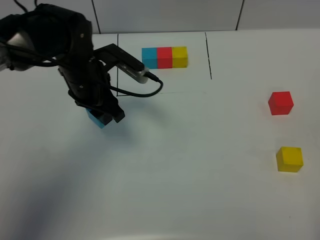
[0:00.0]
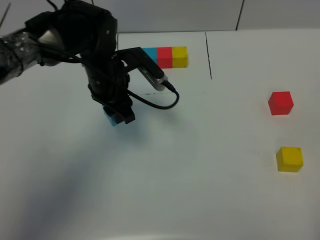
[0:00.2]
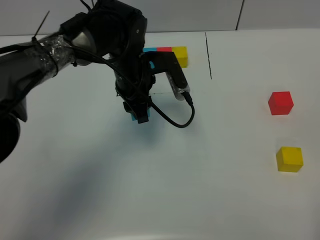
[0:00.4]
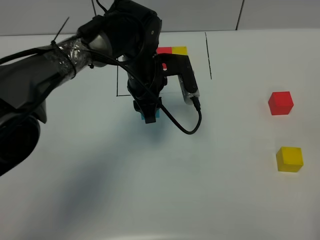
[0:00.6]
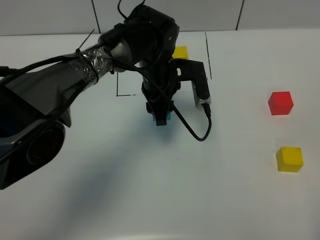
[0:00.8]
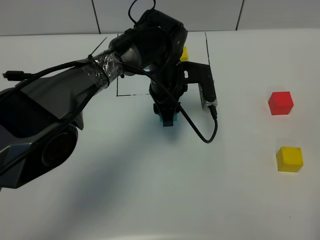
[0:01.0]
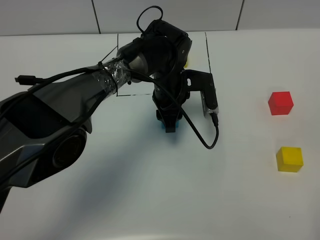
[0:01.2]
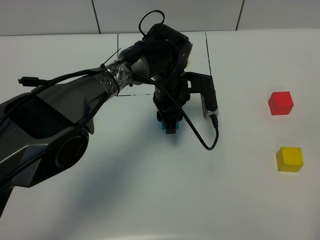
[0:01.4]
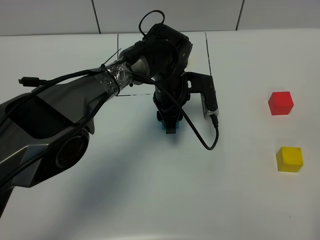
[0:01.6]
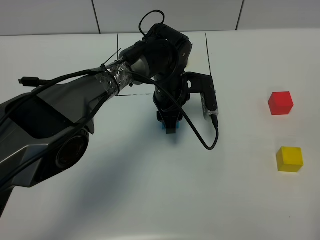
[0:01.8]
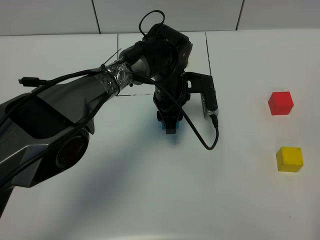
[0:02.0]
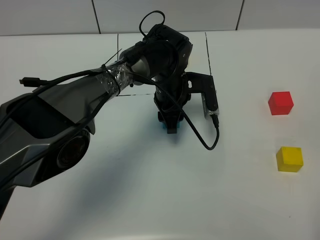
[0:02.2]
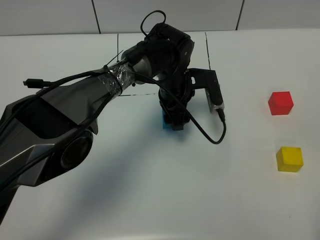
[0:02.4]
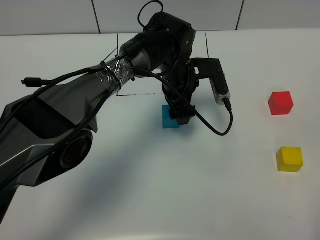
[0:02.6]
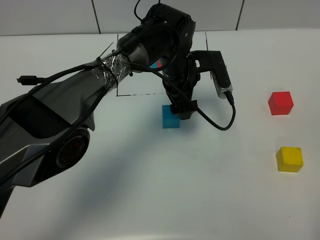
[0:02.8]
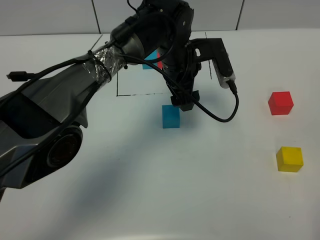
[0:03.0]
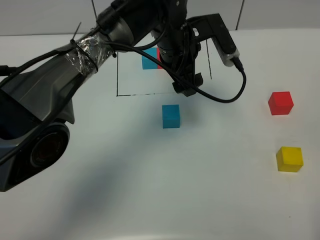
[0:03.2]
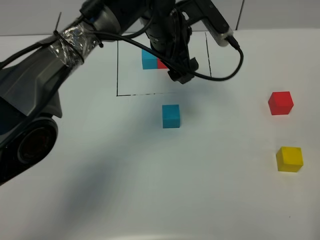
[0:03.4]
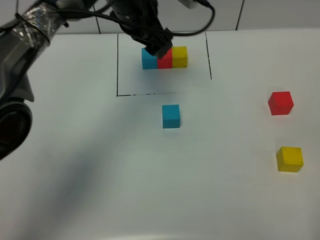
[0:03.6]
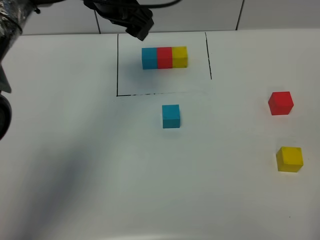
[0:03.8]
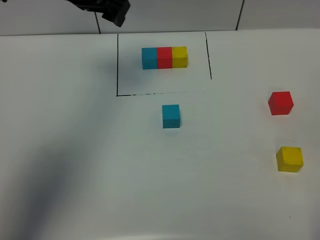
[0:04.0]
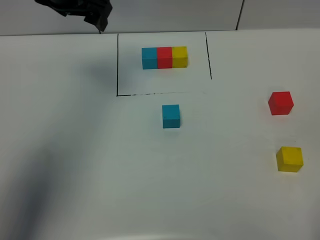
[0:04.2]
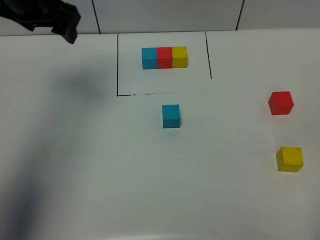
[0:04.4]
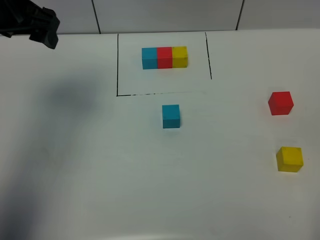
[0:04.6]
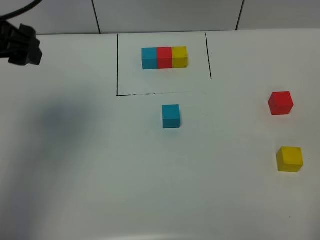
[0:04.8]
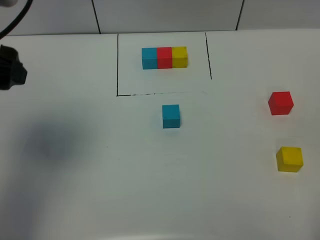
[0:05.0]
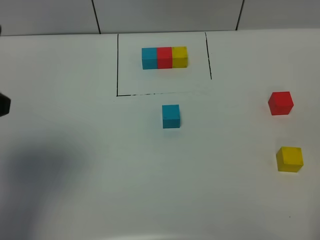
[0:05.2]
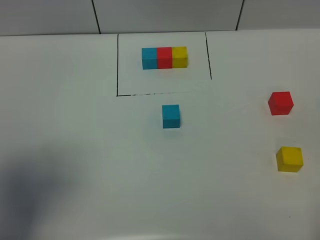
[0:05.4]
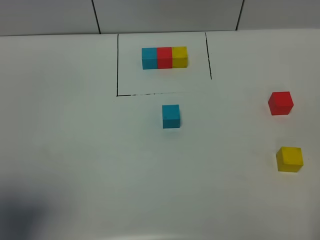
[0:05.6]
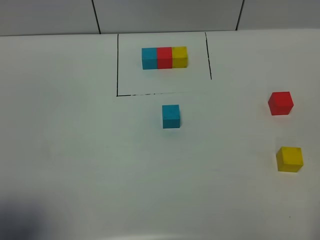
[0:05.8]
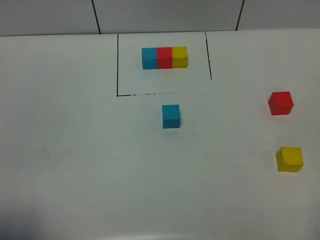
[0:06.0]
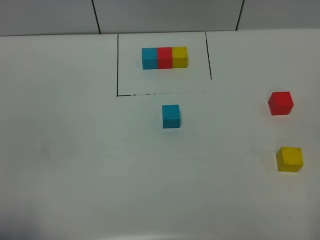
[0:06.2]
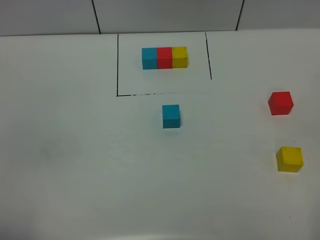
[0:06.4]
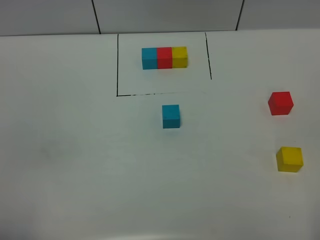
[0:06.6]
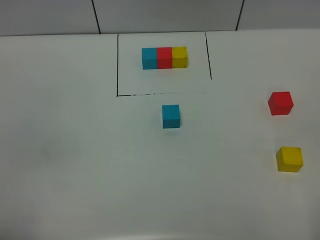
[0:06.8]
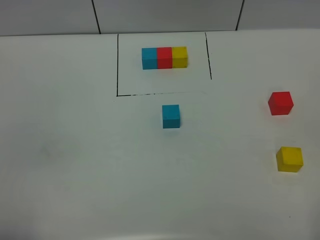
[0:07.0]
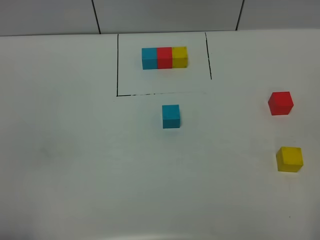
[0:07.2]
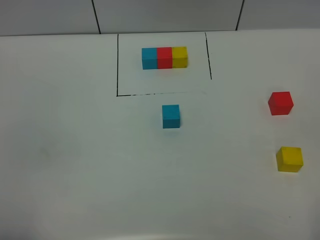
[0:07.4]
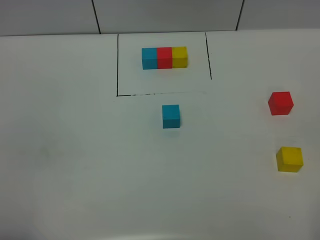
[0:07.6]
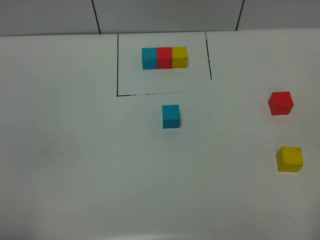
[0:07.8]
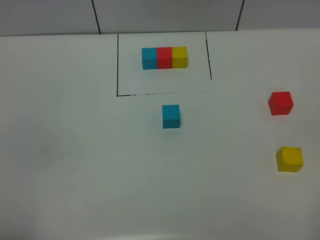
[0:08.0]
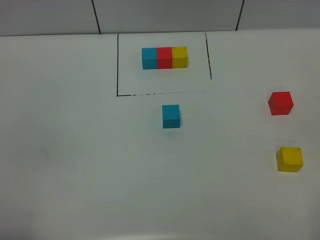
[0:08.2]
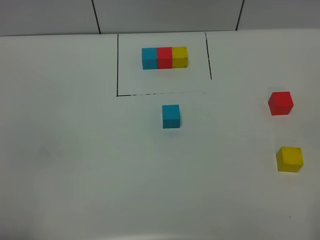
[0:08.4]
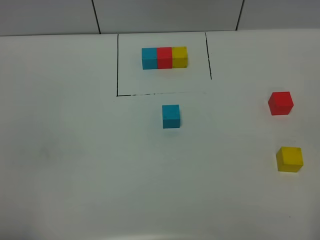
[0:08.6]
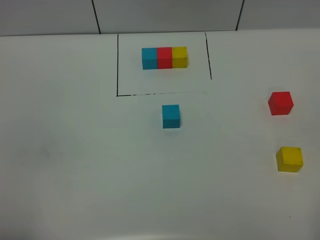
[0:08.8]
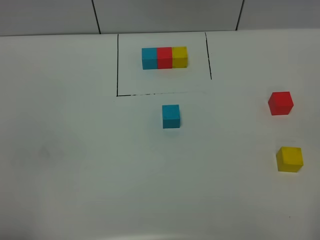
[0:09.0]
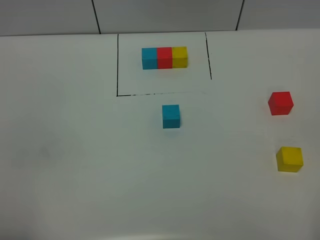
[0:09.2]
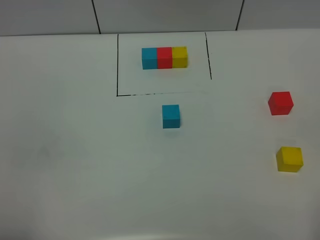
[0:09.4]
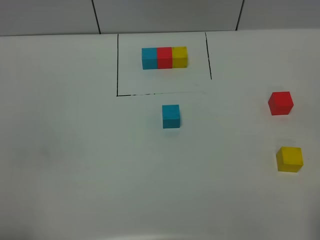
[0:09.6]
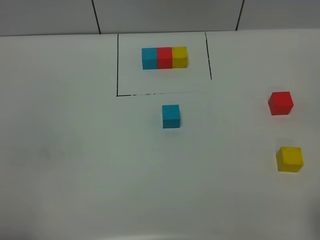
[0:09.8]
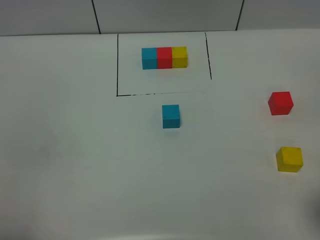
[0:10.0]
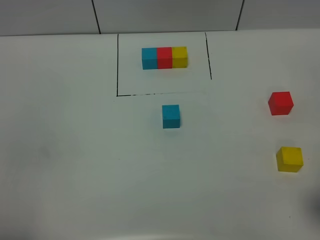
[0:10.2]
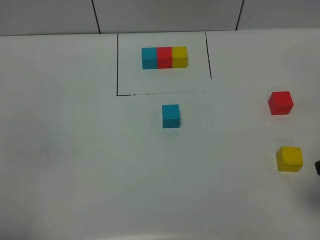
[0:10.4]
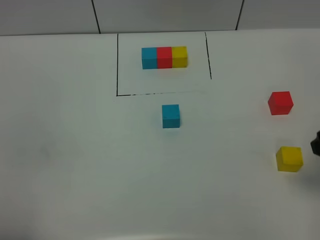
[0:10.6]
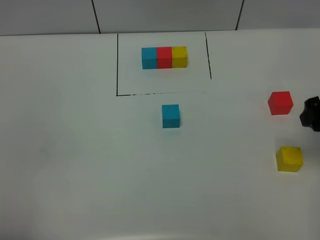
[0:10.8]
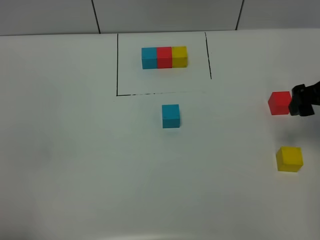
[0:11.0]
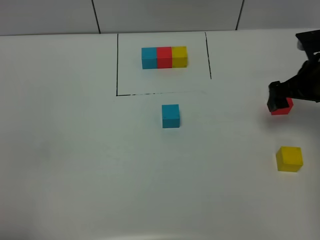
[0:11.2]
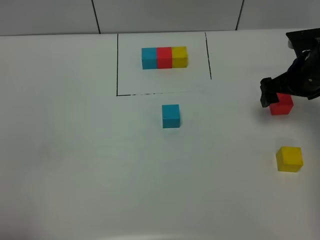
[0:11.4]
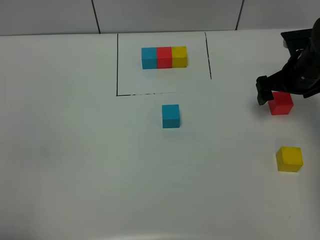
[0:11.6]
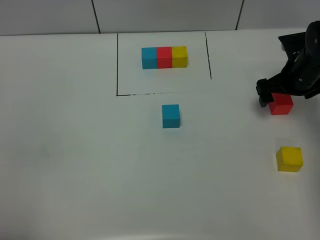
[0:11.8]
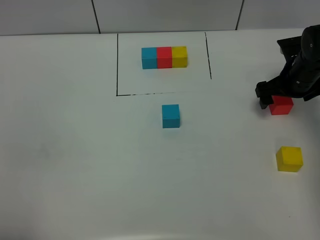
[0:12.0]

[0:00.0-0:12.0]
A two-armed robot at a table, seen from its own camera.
Task of the whole recording: According to the building block template in front, assemble the scattered blocks together.
Step, 0:00.0 to 0:02.2: Put the blue build block in the center of the table.
0:00.0 to 0:01.6: The left gripper is displaced to the right and downward by some 15 cm.
0:01.6 to 0:03.0: The left gripper shifts approximately 10 cm upward, and opens up.
0:03.0 to 0:04.4: The left gripper goes some 30 cm to the left and upward.
0:04.4 to 0:06.0: The left gripper moves backward, roughly 35 cm.
0:07.6 to 0:09.0: Both grippers stay about where they are.
0:09.0 to 0:10.4: The right gripper travels forward by roughly 15 cm.
0:10.4 to 0:12.0: The right gripper shifts approximately 25 cm forward and downward.

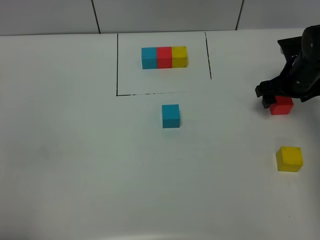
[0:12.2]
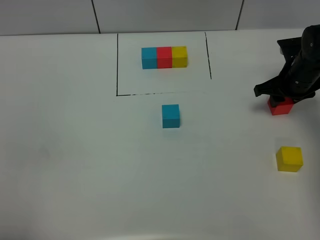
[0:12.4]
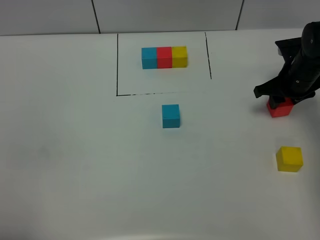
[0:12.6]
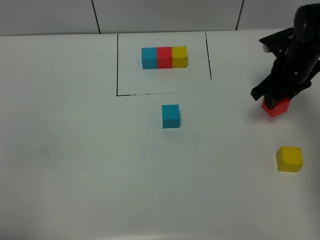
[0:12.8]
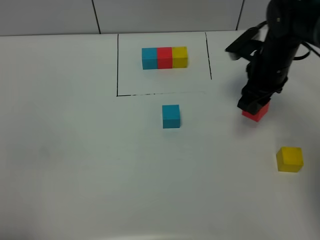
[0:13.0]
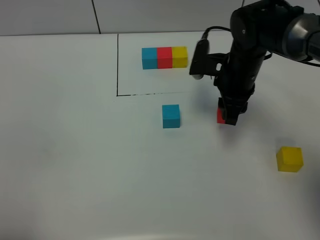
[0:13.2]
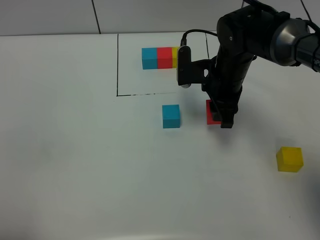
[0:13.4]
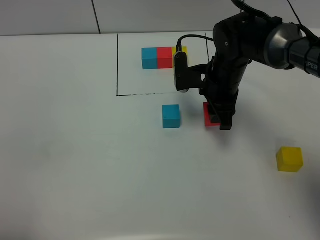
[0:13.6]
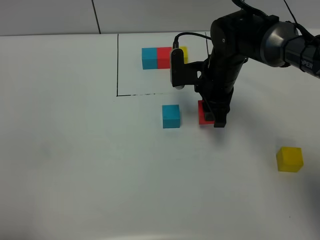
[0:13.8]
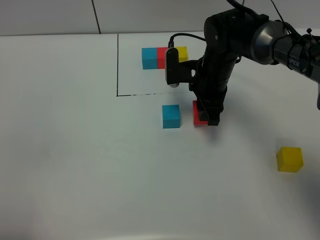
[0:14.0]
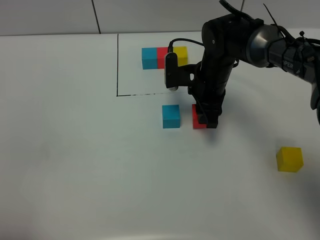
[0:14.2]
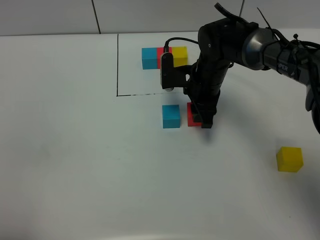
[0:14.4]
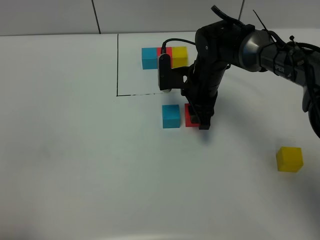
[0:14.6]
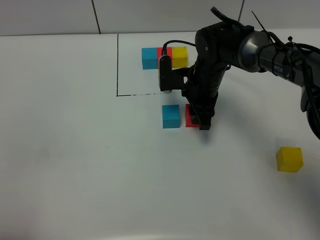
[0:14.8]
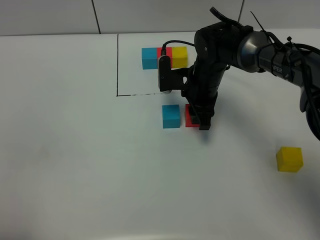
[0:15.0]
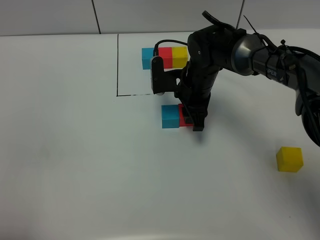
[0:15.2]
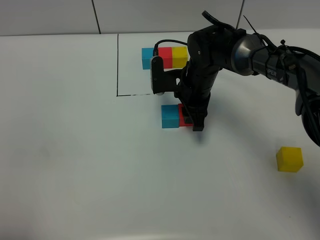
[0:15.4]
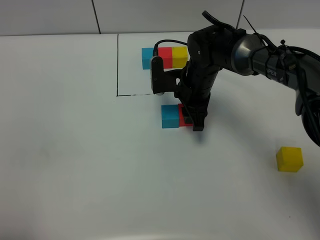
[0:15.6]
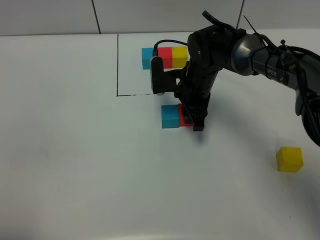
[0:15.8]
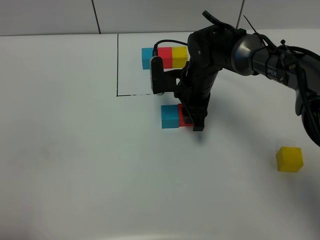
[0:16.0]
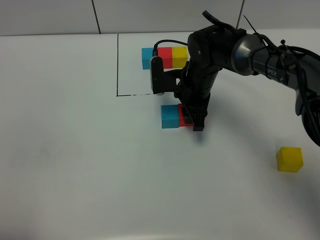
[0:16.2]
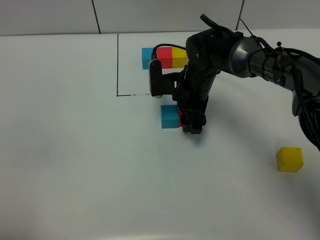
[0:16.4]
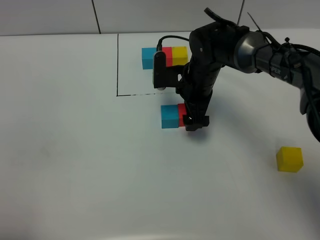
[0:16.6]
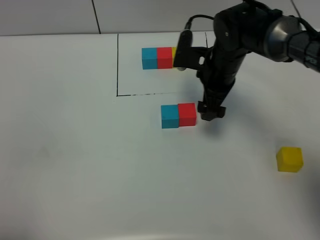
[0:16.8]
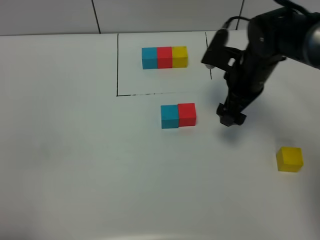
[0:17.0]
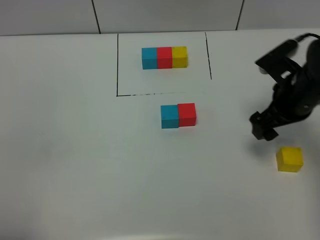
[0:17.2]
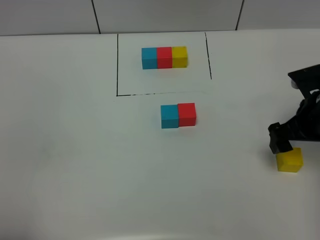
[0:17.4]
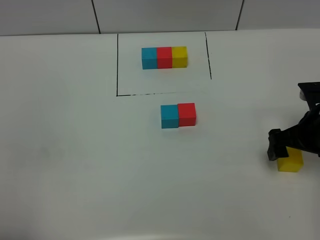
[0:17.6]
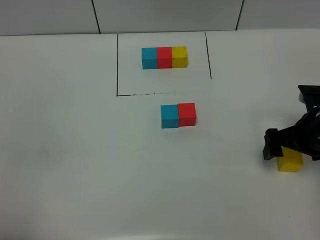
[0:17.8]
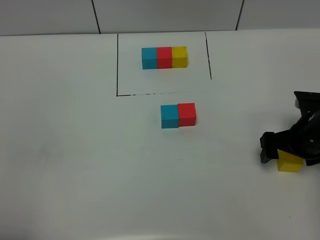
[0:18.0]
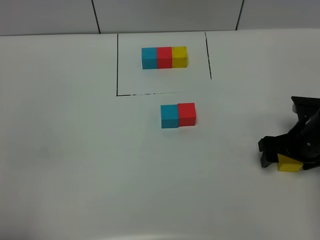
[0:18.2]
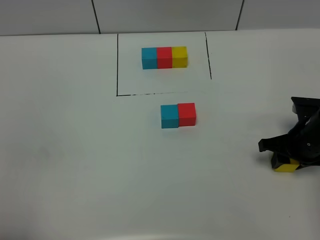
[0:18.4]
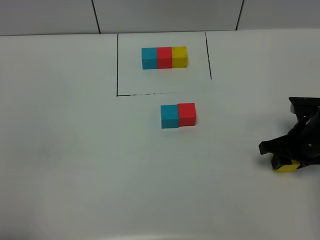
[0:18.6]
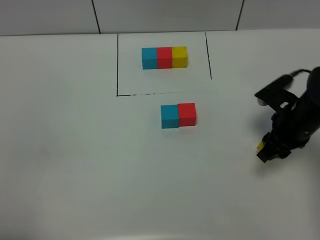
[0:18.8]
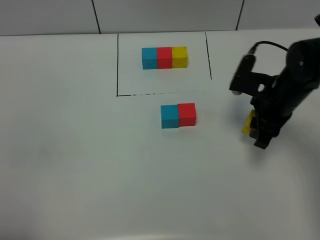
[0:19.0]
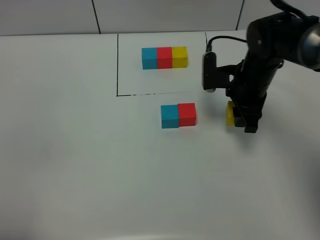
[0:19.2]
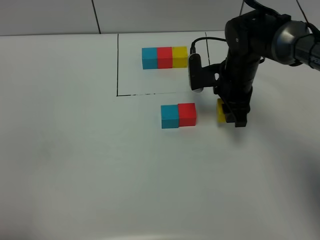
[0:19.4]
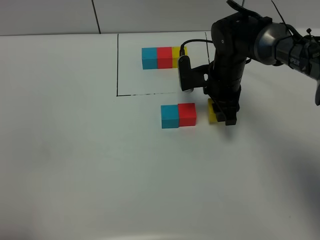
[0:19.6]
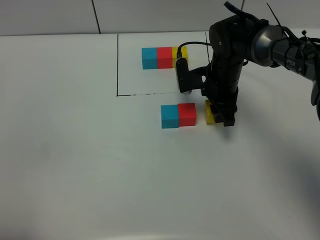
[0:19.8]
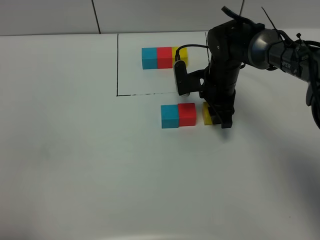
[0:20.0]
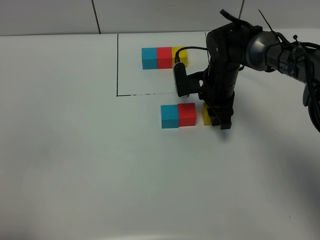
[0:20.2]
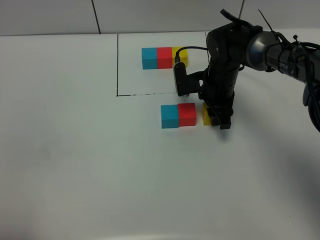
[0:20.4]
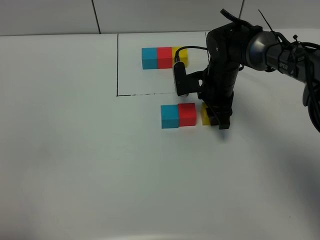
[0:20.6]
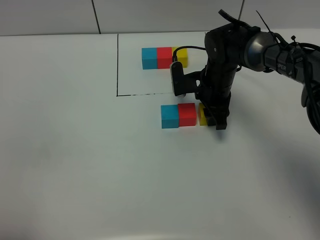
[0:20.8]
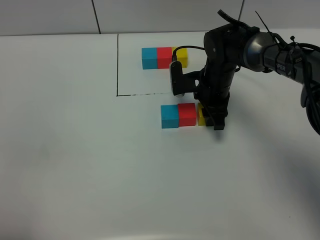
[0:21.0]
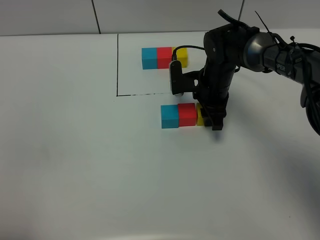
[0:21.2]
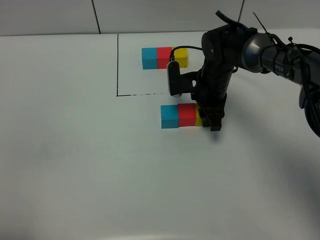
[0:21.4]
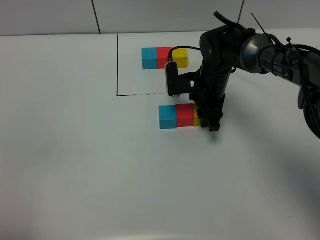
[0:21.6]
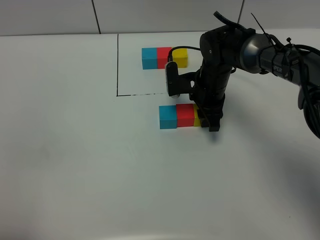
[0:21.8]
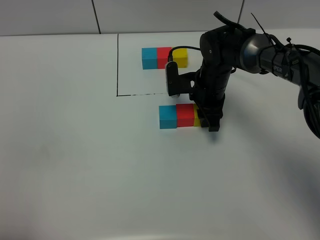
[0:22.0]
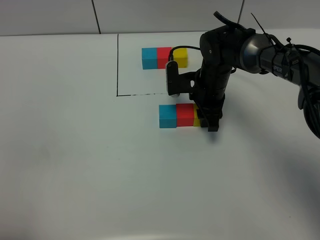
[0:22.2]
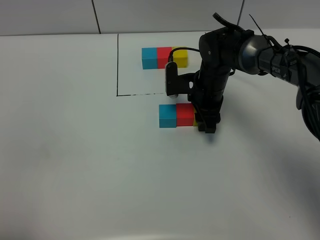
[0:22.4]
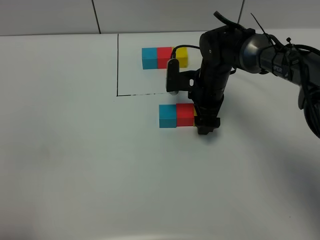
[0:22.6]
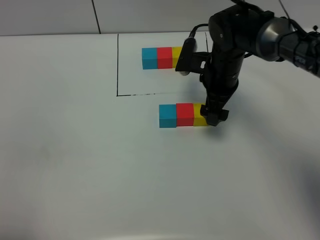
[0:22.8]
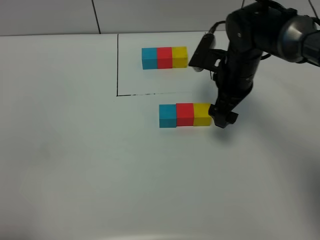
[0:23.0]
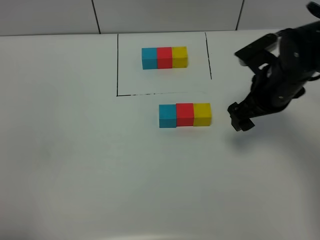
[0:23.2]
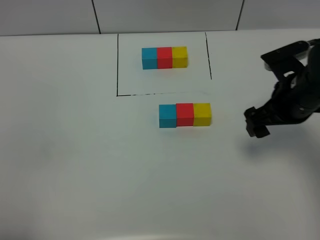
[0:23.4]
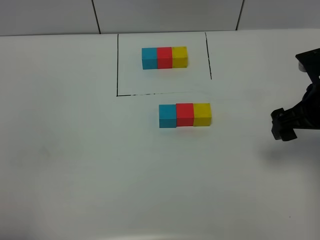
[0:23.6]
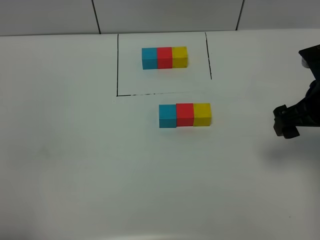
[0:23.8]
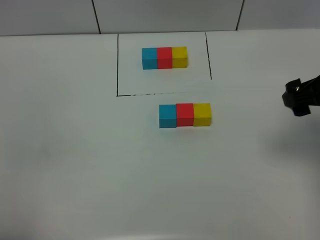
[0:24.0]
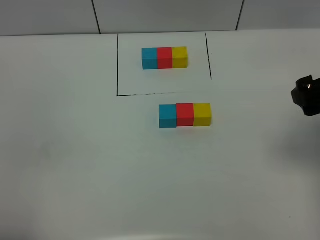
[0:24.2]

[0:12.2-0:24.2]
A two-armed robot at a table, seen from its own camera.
Task of the whole recording: According to the building block template in front, assemble the scattered blocks together.
Step, 0:12.2 to 0:16.4: Put the red build block on the right of the blue build block.
Step, 0:16.6 to 0:22.6: Put the yellow build block on the right of the red build block.
0:12.2 to 0:13.8: The right gripper goes approximately 20 cm to the left, and closes up.
0:13.8 to 0:15.2: The right gripper shifts by about 5 cm.
0:15.2 to 0:16.6: The right gripper opens its fingers.
0:16.6 to 0:18.2: The right gripper goes about 25 cm to the right and backward.
0:18.2 to 0:19.8: The right gripper travels to the left and forward by some 20 cm, and closes its fingers.
0:19.8 to 0:21.2: The grippers make only small movements.
0:21.2 to 0:22.6: The right gripper opens.
0:22.6 to 0:24.2: The right gripper heads upward, to the right and backward, covering about 30 cm.
